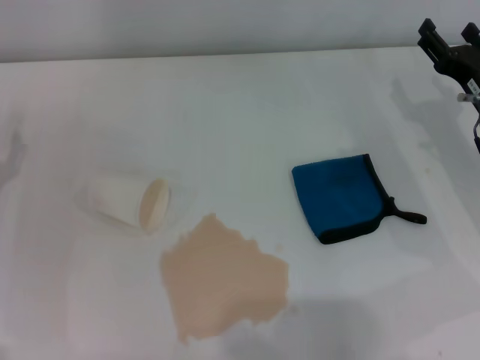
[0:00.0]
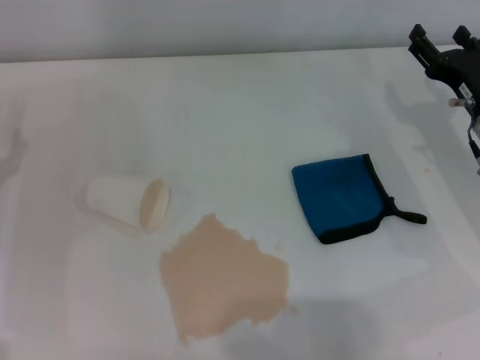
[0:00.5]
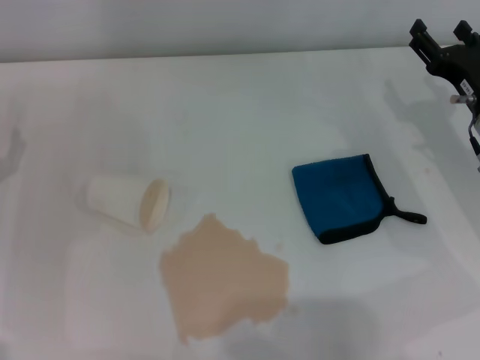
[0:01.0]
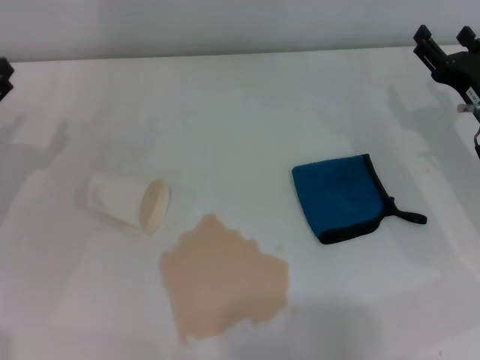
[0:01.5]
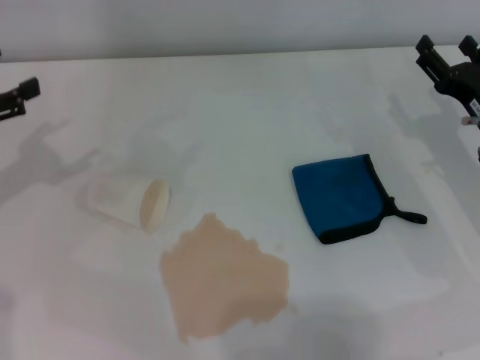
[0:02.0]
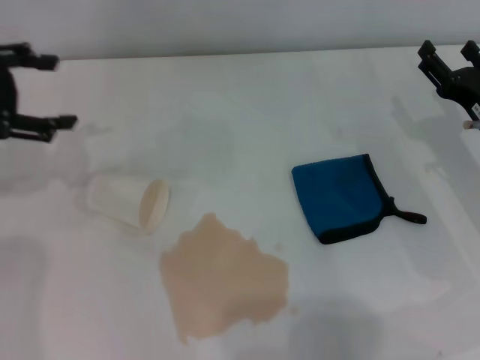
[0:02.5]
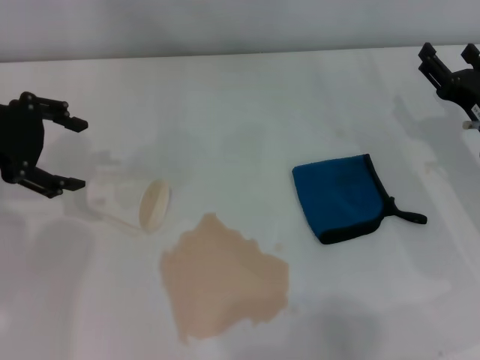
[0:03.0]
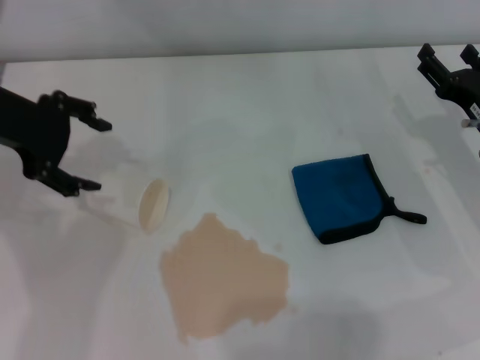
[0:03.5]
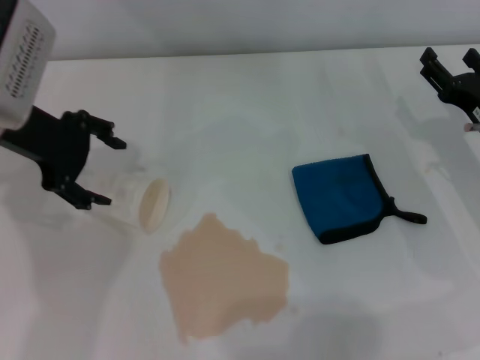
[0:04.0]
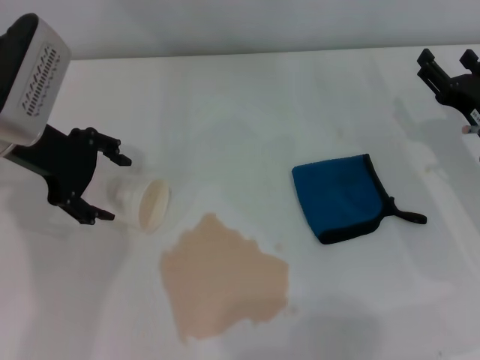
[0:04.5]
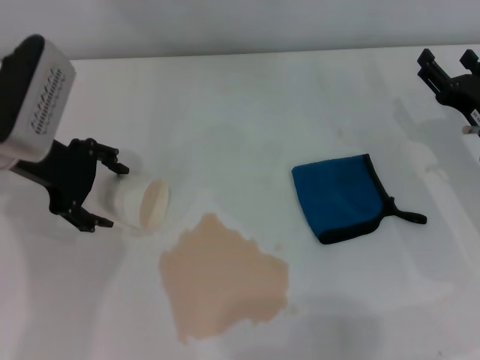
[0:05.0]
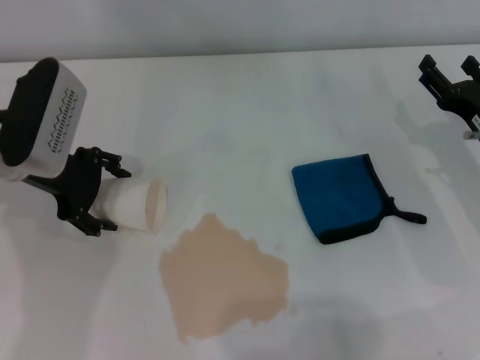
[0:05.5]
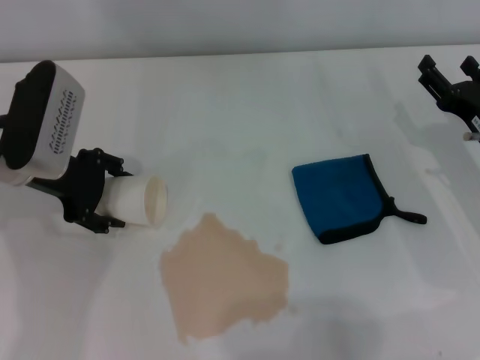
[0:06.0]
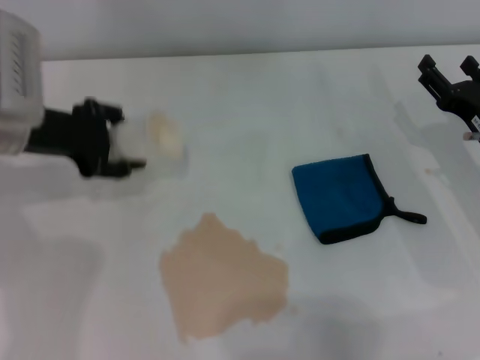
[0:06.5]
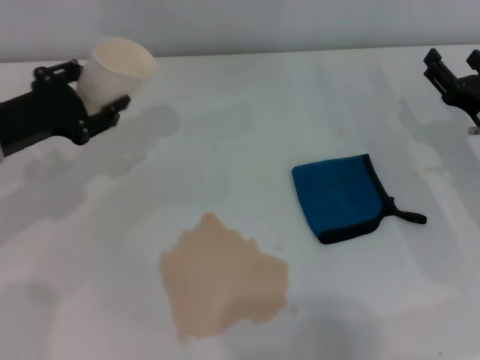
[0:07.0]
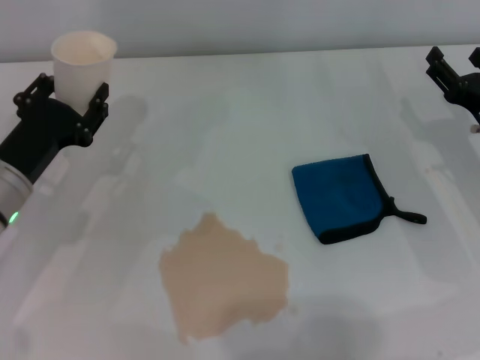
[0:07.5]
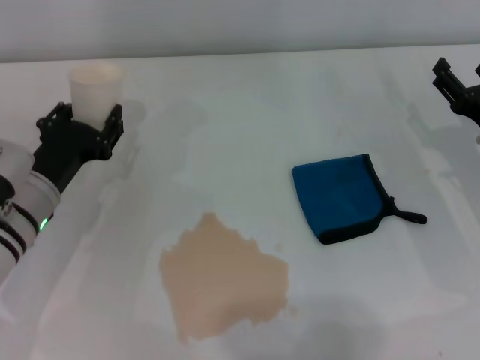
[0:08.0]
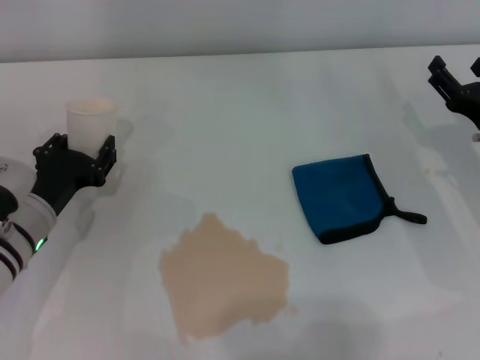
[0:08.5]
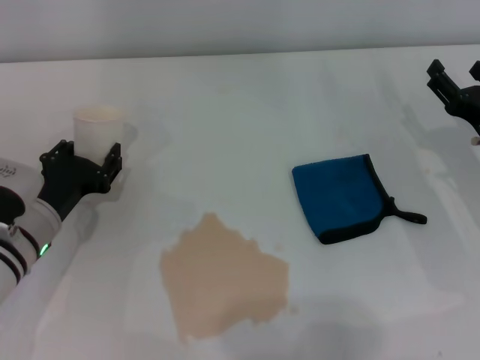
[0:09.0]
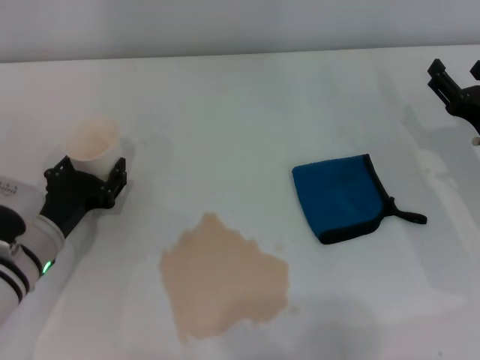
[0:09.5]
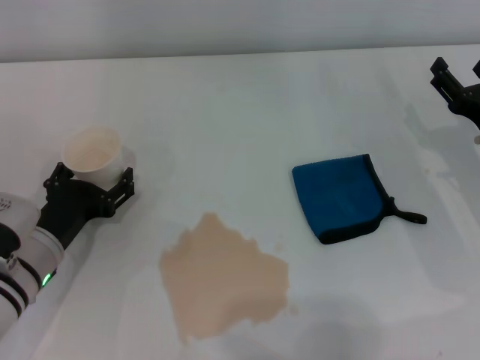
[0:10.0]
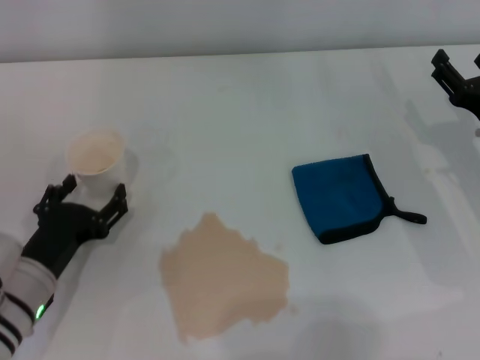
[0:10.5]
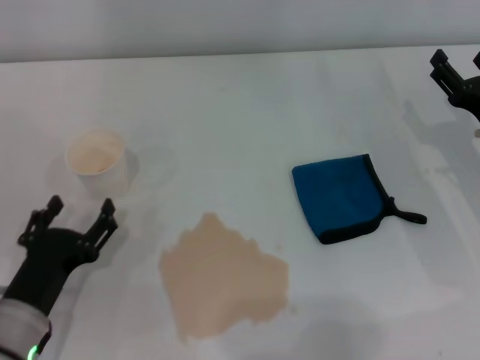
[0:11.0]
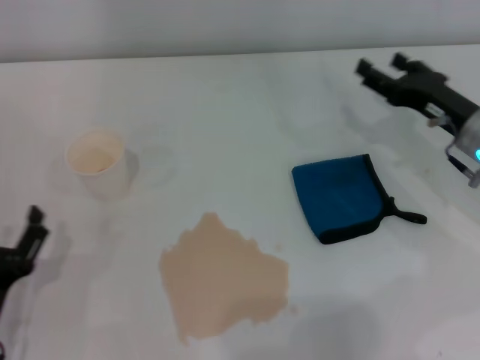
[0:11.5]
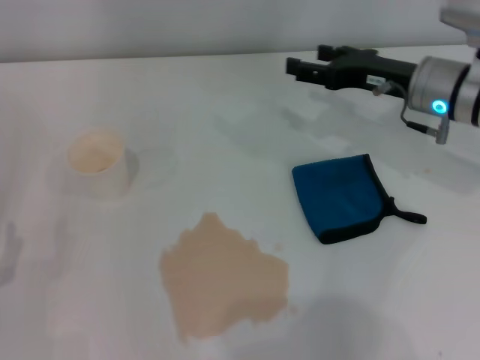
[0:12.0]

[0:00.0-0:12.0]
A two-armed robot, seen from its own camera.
Step, 0:00.0 to 0:06.0: Grasp the paper cup with the left gripper.
Step, 0:06.5 to 0:10.0: Stand the paper cup upright with the left gripper.
0:00.0 to 0:02.0: The left gripper goes roughly 10 cm upward.
0:02.0 to 0:04.0: The left gripper heads to the right and forward, covering some 15 cm.
0:04.0 to 0:06.0: The left gripper moves downward, some 5 cm.
0:06.0 to 0:08.0: The left gripper is displaced downward and backward by roughly 10 cm, and closes.
0:08.0 to 0:10.0: The left gripper shifts by about 5 cm, and opens its fingers.
0:10.0 to 0:12.0: The left gripper goes approximately 15 cm backward and to the left. The right gripper travels forward, upward and to the left by some 15 cm.

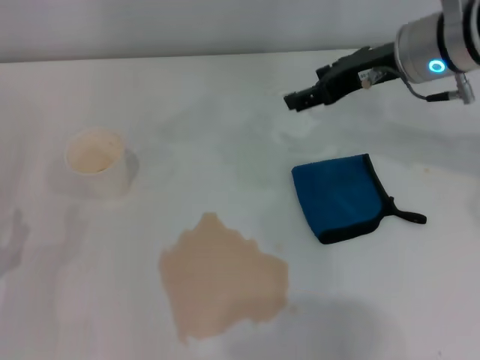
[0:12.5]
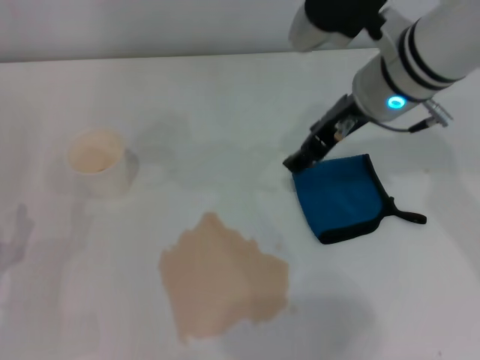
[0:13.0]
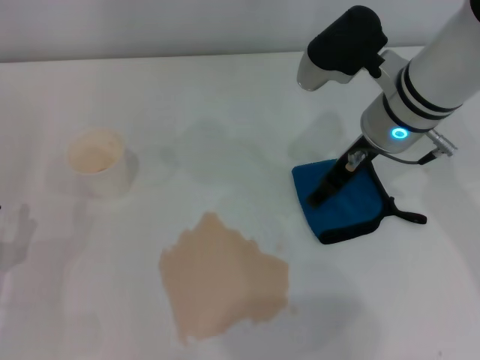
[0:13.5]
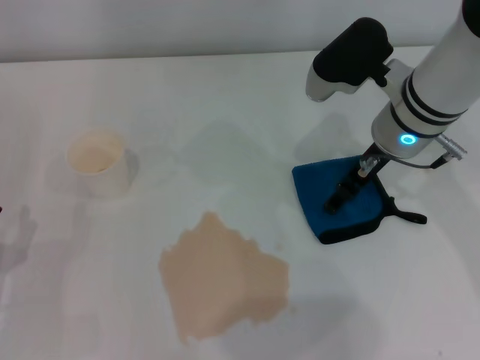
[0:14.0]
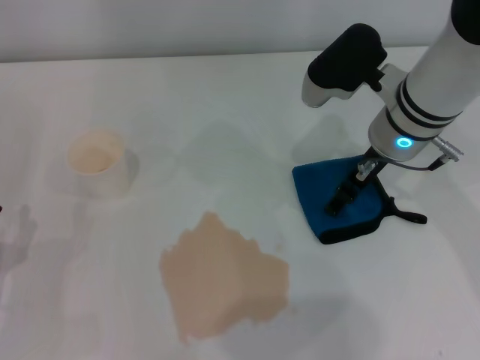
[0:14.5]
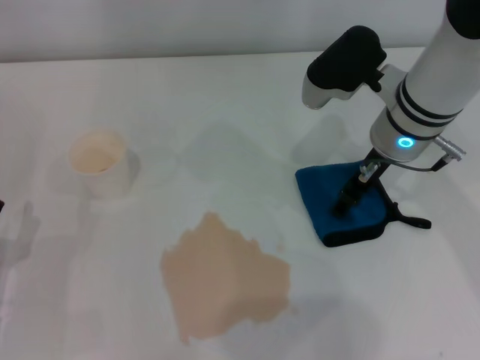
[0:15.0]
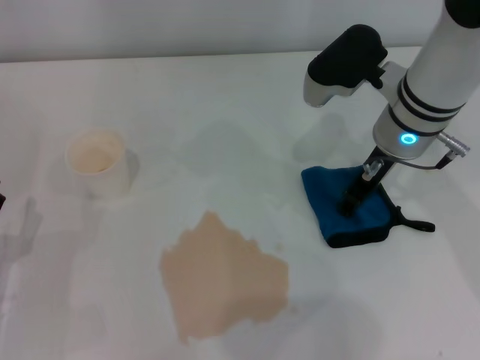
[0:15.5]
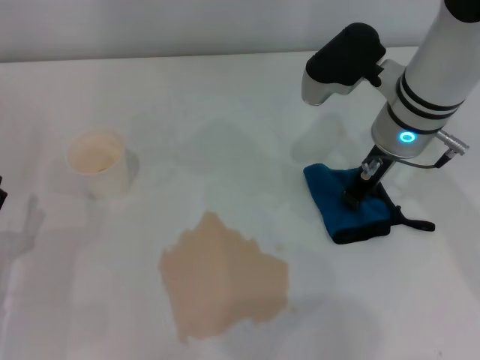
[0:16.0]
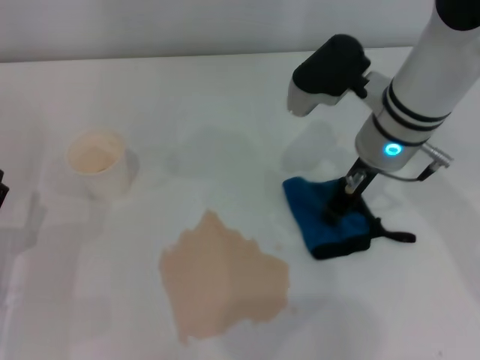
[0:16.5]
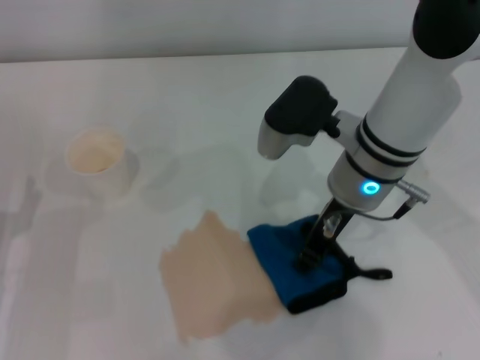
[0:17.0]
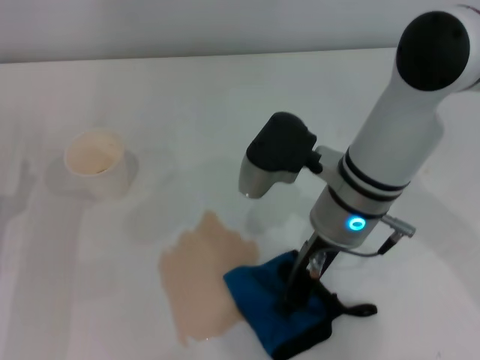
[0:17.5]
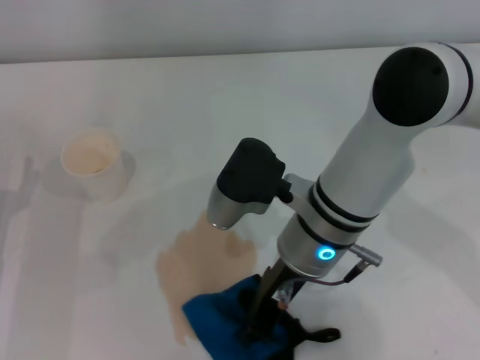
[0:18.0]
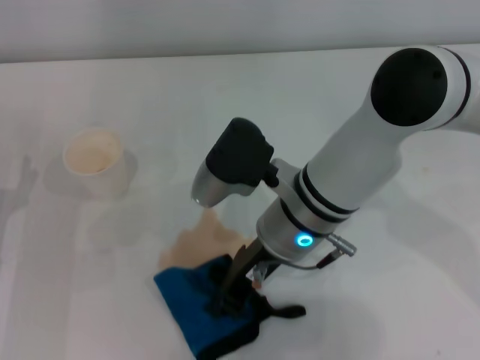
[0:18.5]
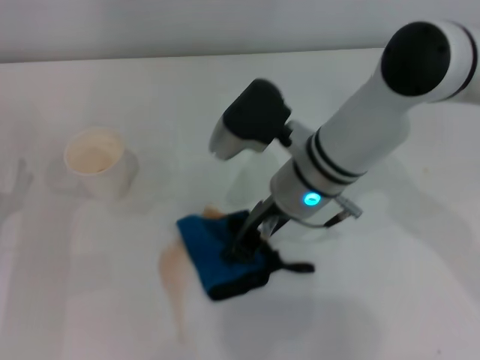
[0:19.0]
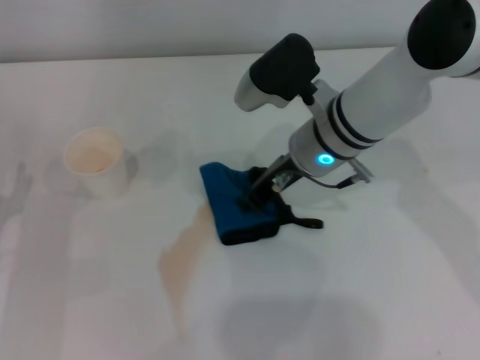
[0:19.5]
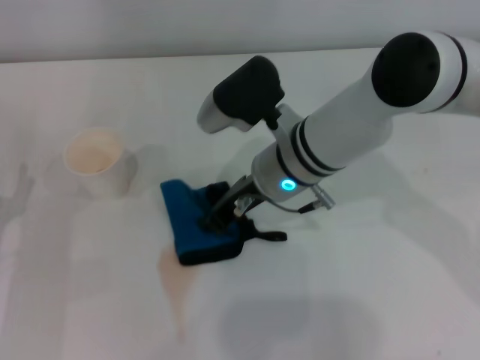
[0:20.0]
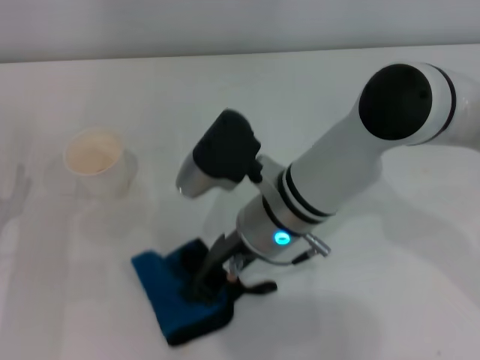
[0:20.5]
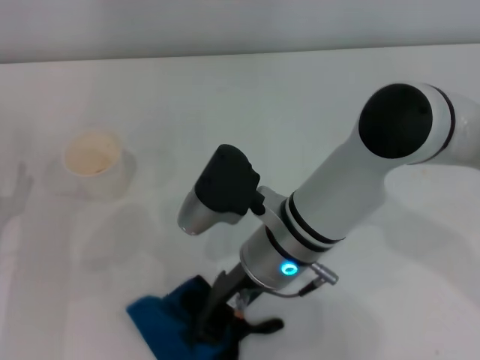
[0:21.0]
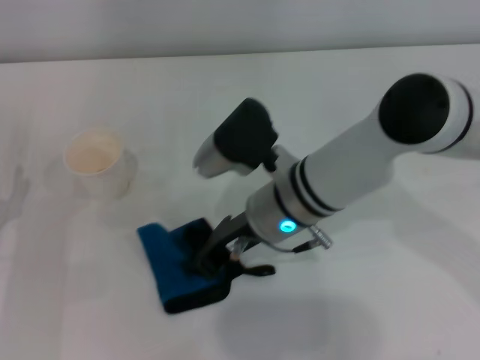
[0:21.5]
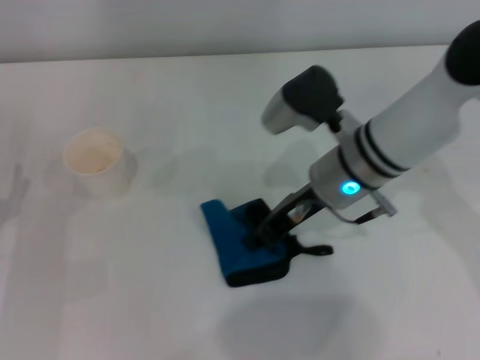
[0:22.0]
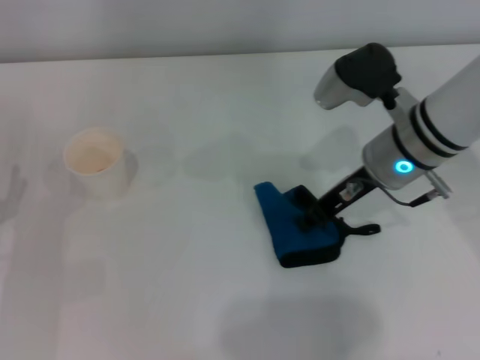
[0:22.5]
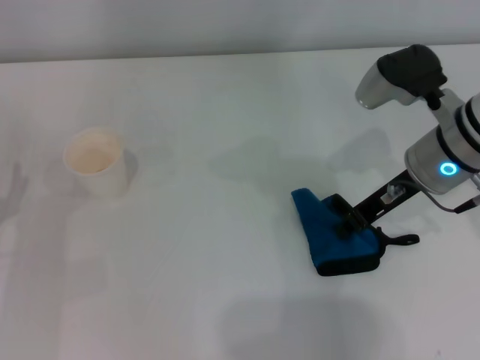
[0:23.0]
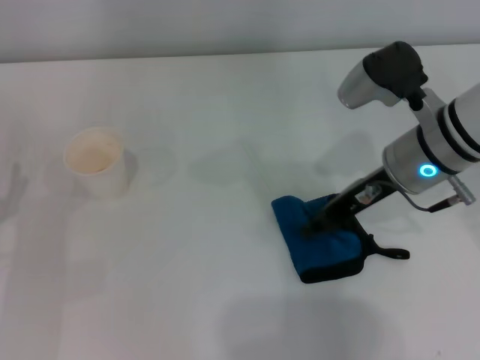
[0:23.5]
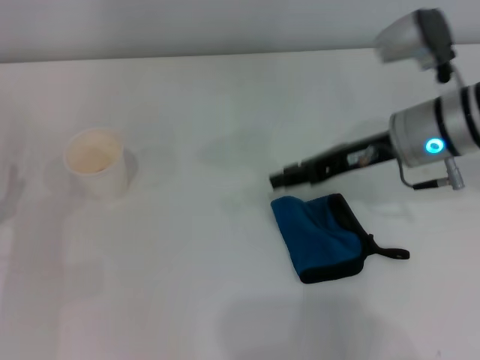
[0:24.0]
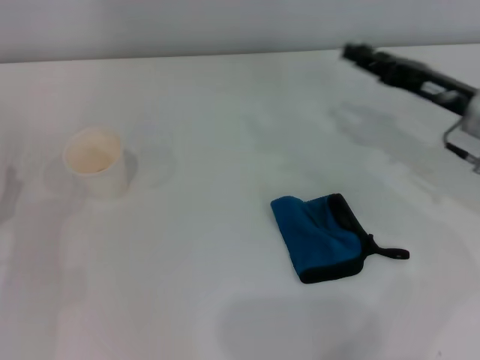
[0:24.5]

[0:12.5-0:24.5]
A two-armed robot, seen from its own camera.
Step, 0:12.5 to 0:15.5: Grasp the rag with the right gripper.
Step, 0:16.0 to 0:22.5: Wipe the stains off the table with the right gripper.
0:12.5 to 0:14.5: The right gripper goes some 5 cm downward.
0:14.5 to 0:16.5: The right gripper closes.
0:16.5 to 0:18.5: The left gripper heads forward, covering about 5 cm. The right gripper shifts roughly 10 cm to the left and backward.
0:20.5 to 0:22.5: The right gripper travels to the right by roughly 15 cm.
0:22.5 to 0:24.5: The right gripper goes approximately 10 cm to the right, and opens up.

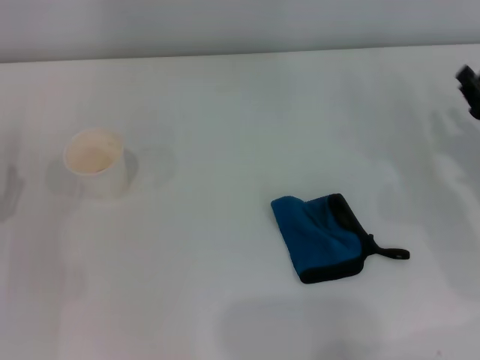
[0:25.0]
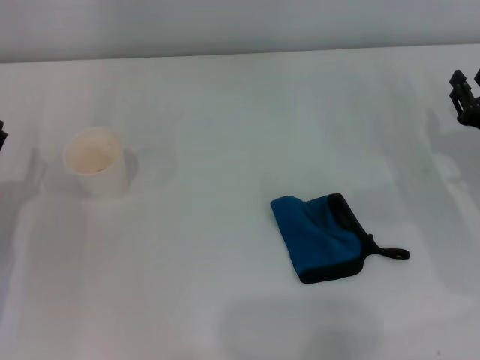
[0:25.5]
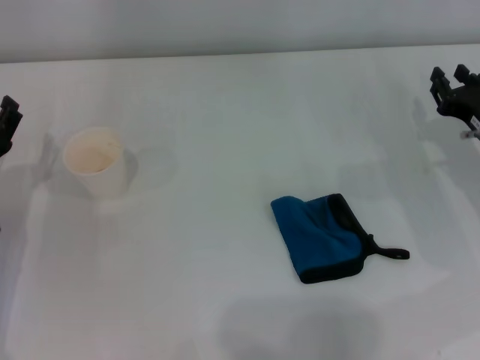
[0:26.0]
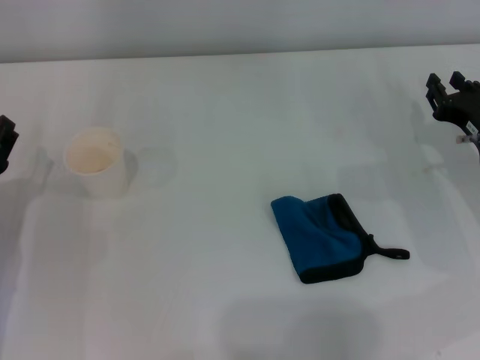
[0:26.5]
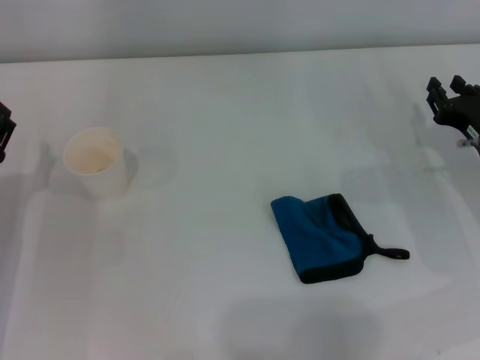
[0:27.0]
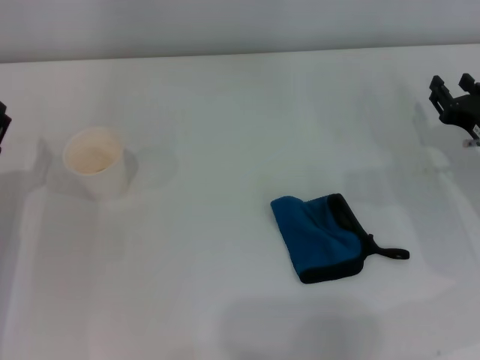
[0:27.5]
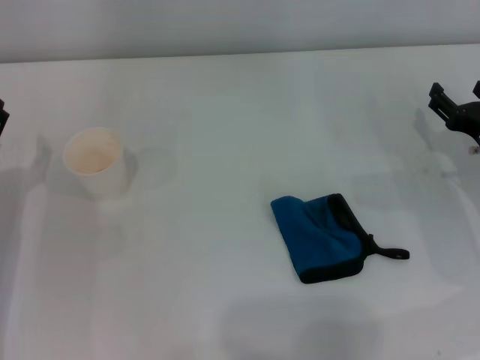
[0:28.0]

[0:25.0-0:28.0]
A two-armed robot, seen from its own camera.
0:26.5 to 0:28.0: The right gripper opens its fingers.
